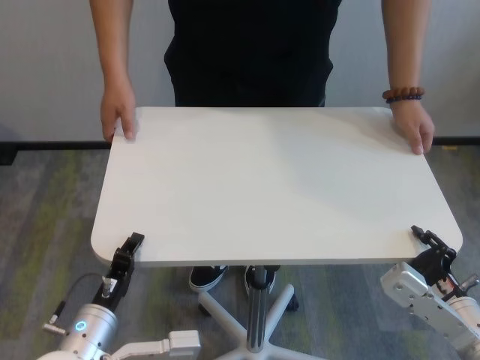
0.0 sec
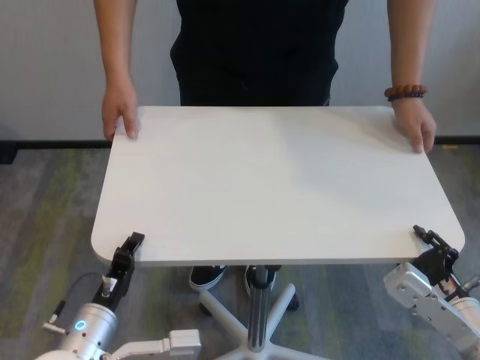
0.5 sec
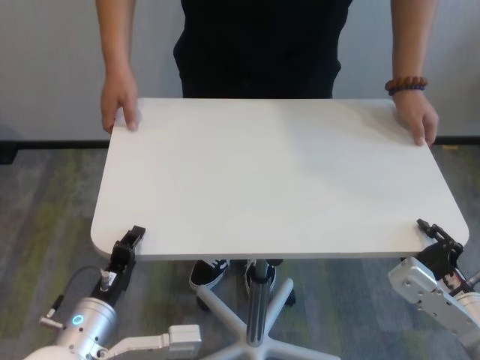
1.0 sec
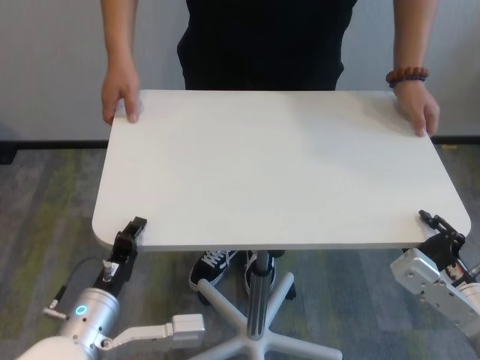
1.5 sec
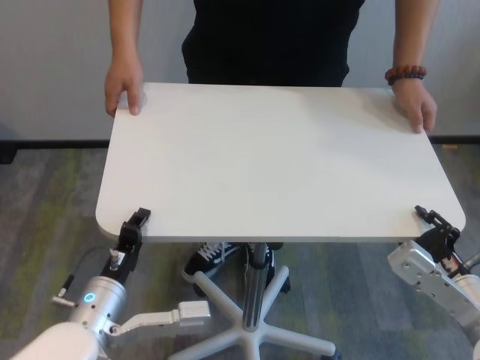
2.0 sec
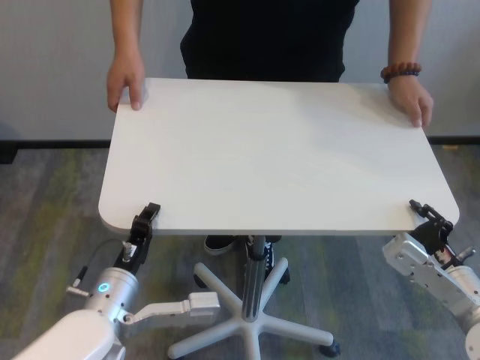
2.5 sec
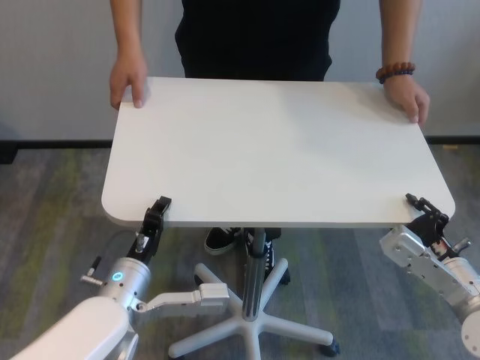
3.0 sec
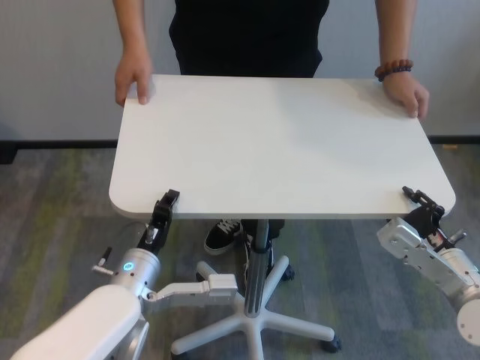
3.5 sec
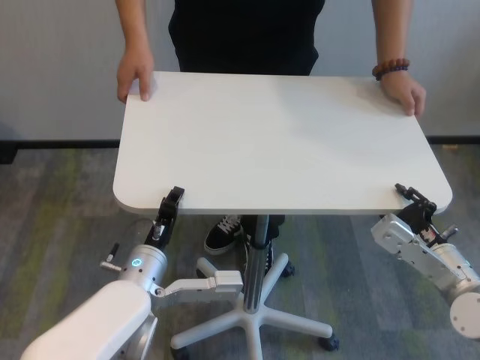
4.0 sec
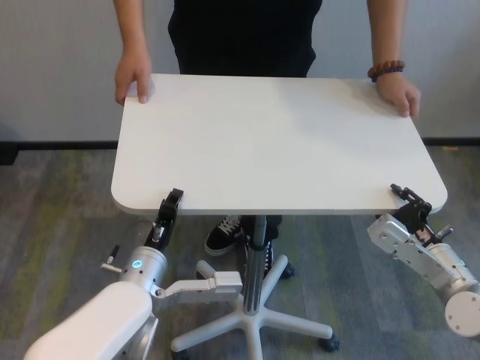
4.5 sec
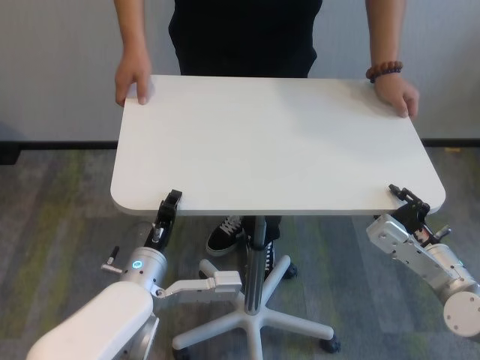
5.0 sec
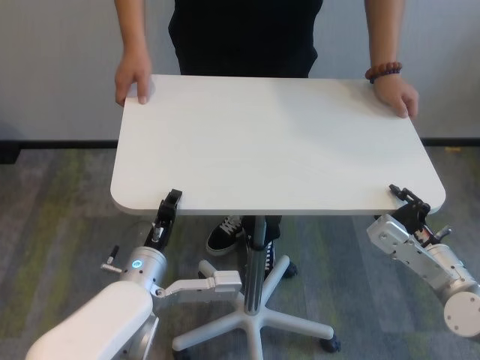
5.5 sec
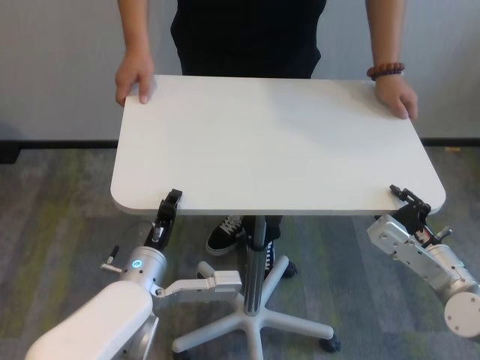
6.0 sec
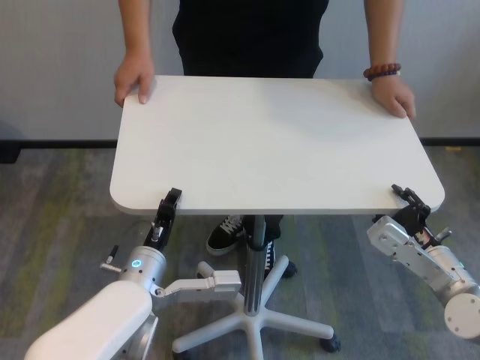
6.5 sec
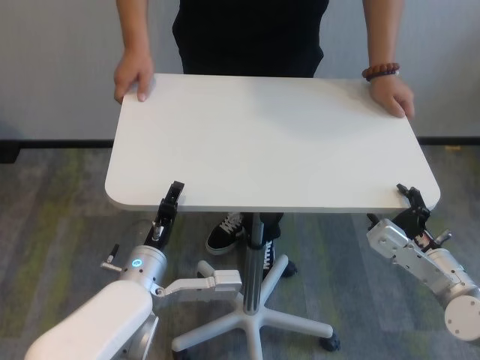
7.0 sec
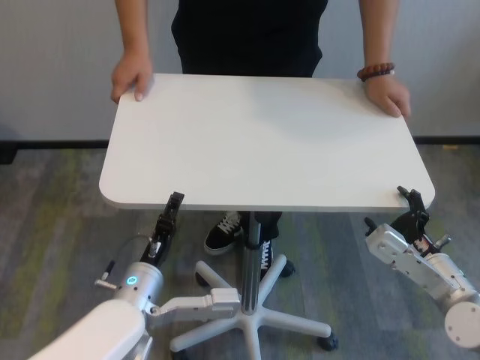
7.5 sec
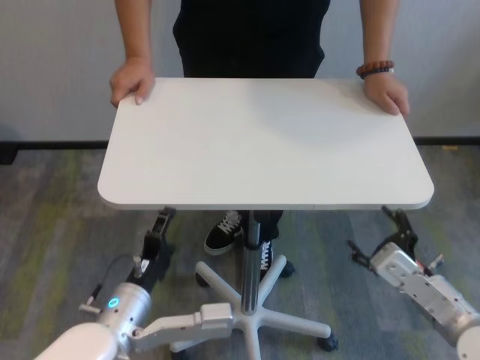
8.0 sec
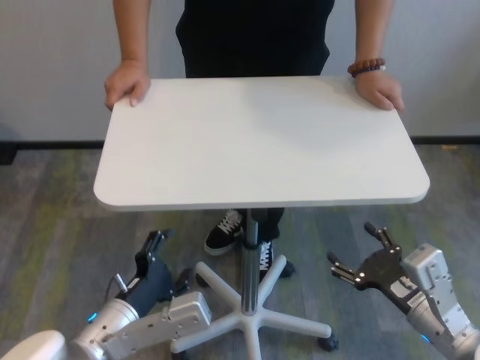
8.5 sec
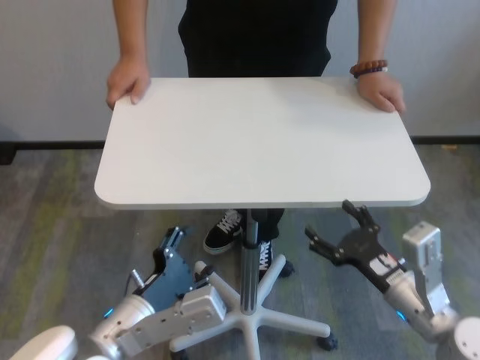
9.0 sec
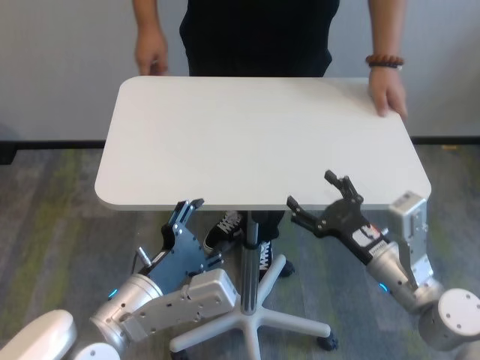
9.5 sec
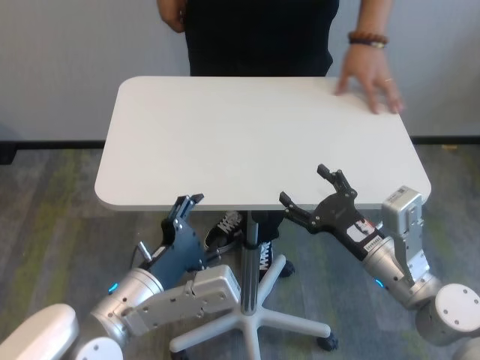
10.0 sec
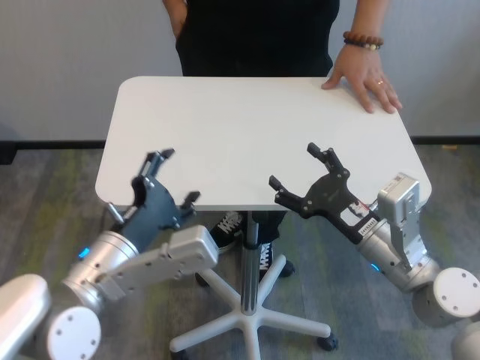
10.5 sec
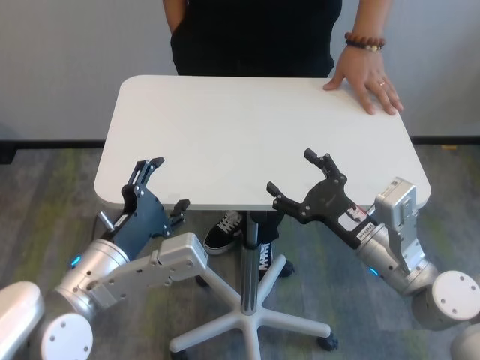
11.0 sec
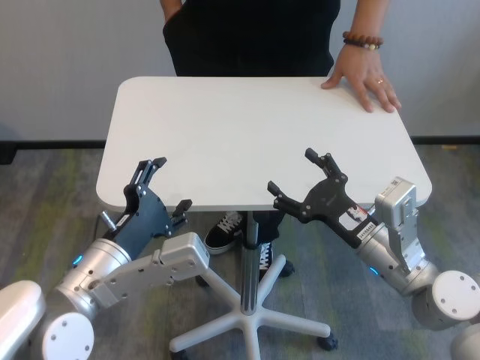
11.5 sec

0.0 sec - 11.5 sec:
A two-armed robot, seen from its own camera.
Task of the whole recording: human machine collaborative table moving.
Step, 0.5 sec - 7.5 sec: Move the table forward with both grippers.
